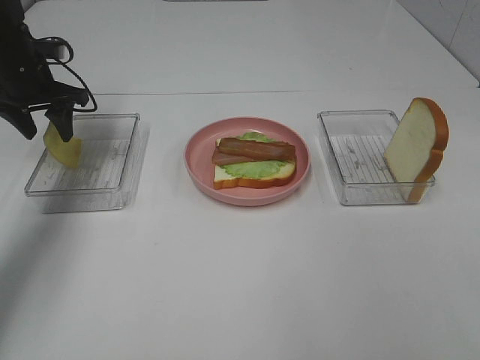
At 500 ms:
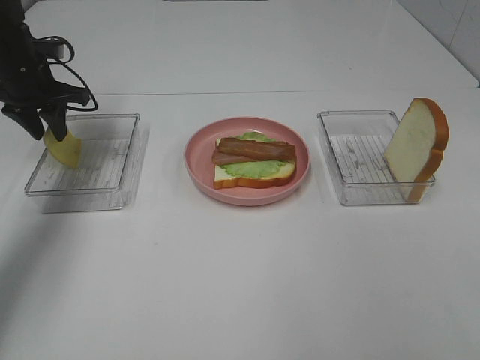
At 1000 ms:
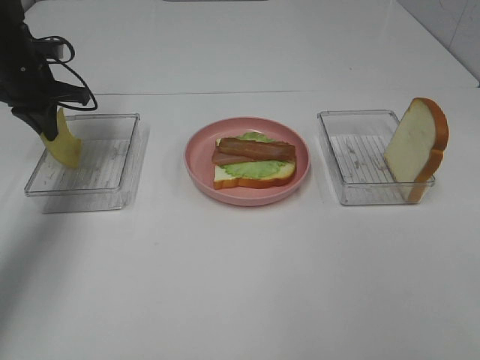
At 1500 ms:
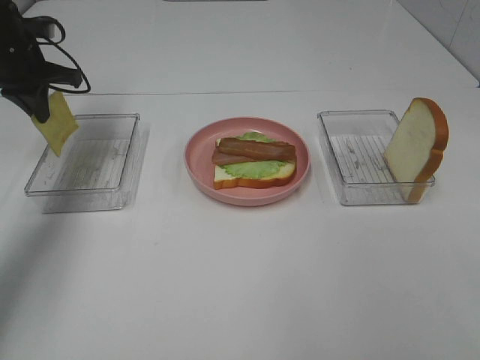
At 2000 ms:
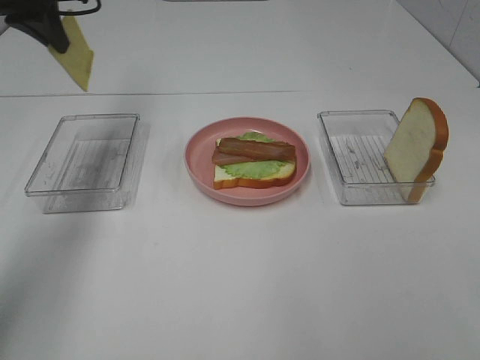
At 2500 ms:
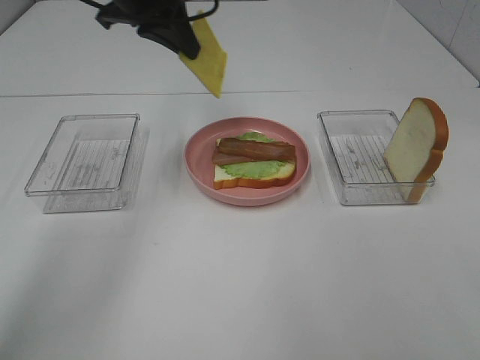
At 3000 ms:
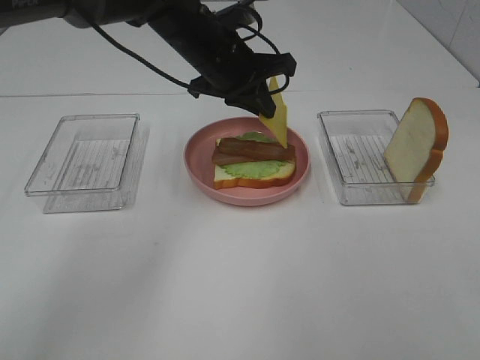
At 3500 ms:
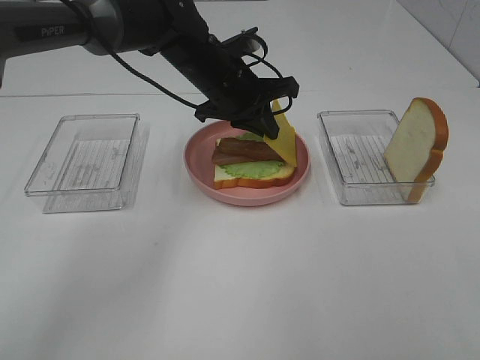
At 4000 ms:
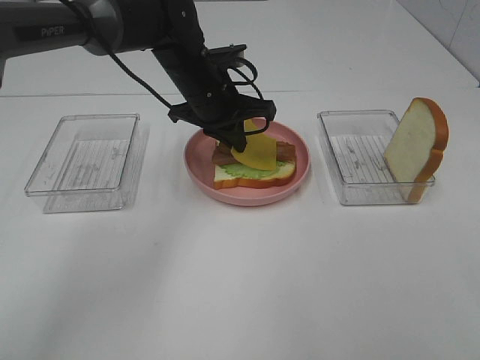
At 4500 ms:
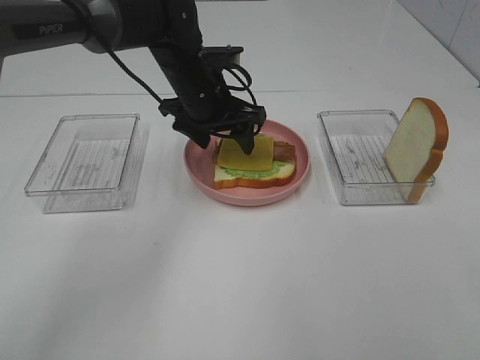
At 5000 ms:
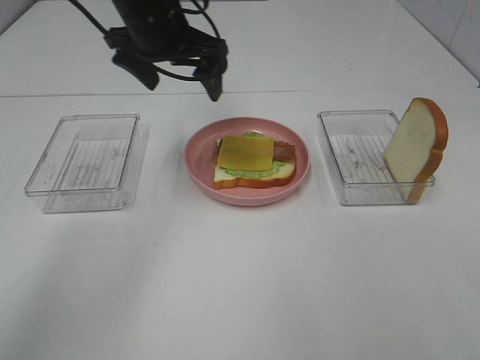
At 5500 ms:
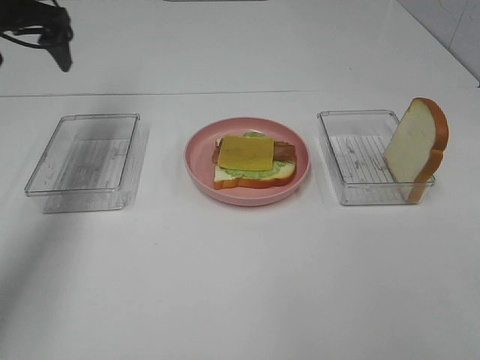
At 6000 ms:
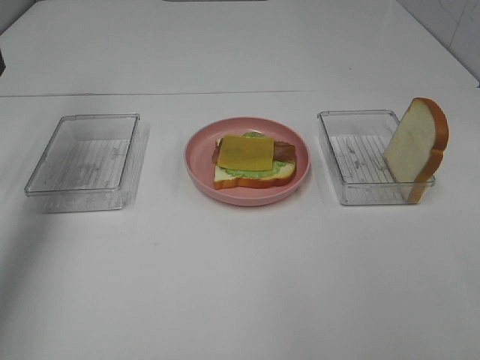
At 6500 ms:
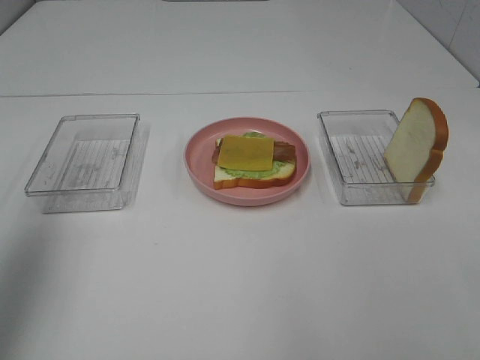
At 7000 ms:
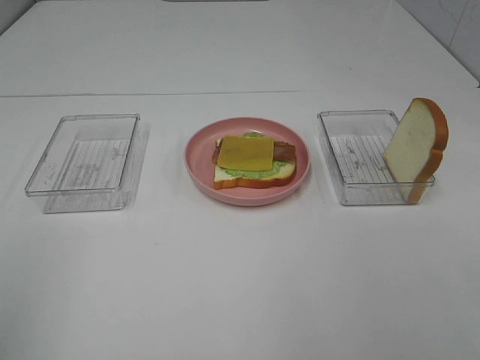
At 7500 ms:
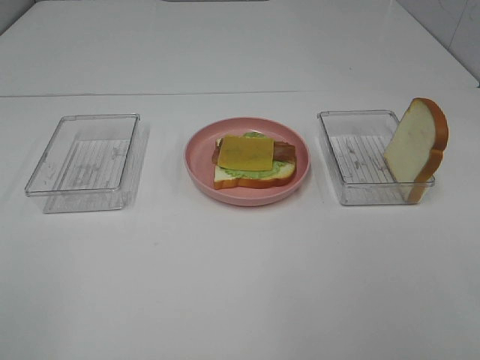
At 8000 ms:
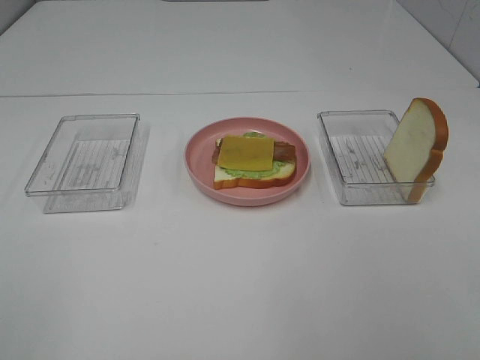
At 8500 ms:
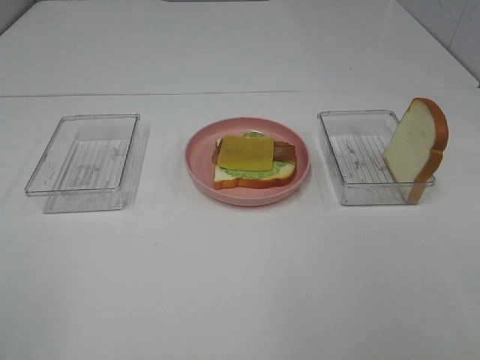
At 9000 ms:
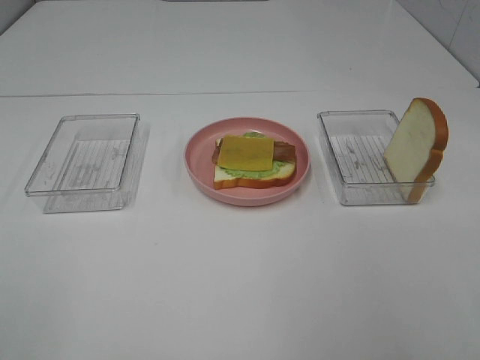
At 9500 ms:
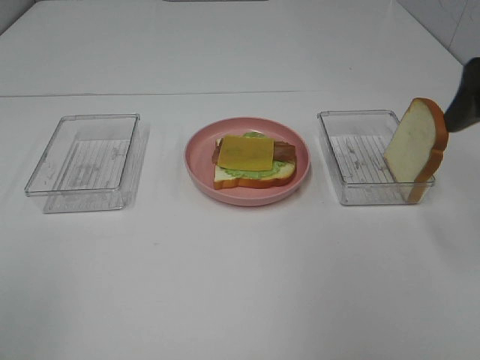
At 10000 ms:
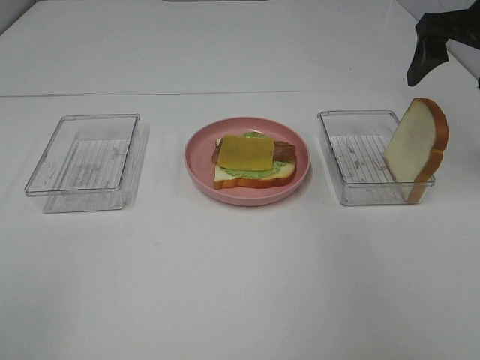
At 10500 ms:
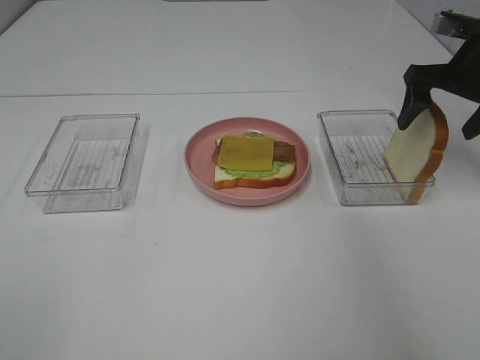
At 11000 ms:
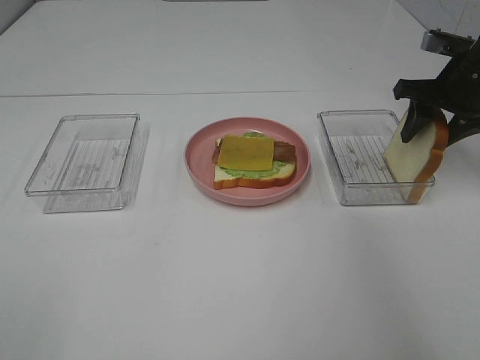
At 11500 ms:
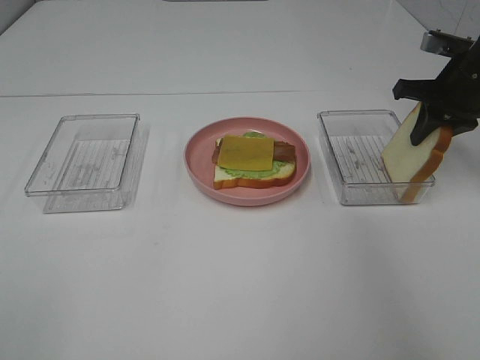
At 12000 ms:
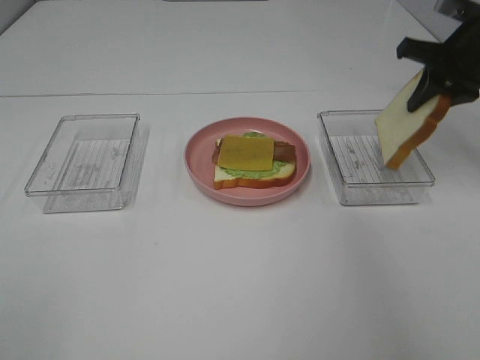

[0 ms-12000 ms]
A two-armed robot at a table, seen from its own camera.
Task of the whole recording: Make sandwiches.
Step, 1500 ms to 4500 ms: Left hand:place the cheese slice on top of the bacon.
Step, 5000 ms to 11500 ms: Right hand:grab the bread slice.
0 ms to 2000 ms: The left gripper goes about 15 cm upward and to the right, and closes.
2000 ms to 4000 ms: The left gripper goes approximately 25 cm to the right and downward.
4000 ms to 6000 ms: The left gripper goes roughly 35 cm to the left and upward, and opens up.
6000 ms to 8000 ms: The left gripper is displaced backward by some 40 cm.
8000 ms to 10000 ms: The right gripper moves forward, approximately 35 cm.
10000 ms to 12000 ms: The right gripper closes up.

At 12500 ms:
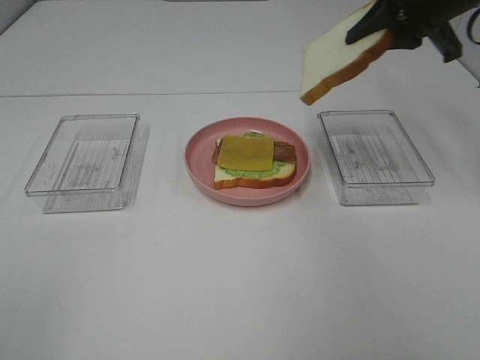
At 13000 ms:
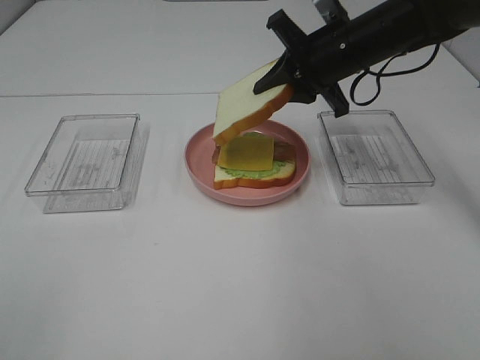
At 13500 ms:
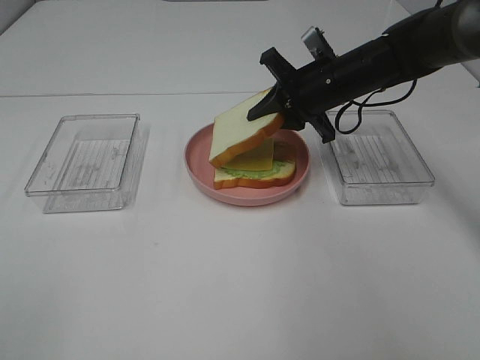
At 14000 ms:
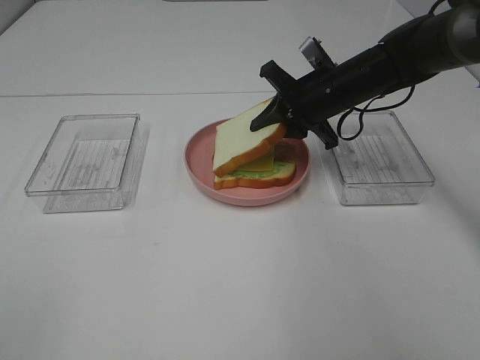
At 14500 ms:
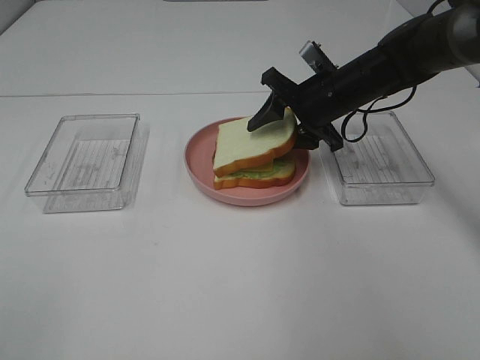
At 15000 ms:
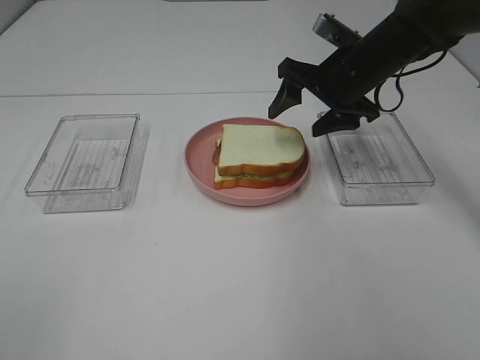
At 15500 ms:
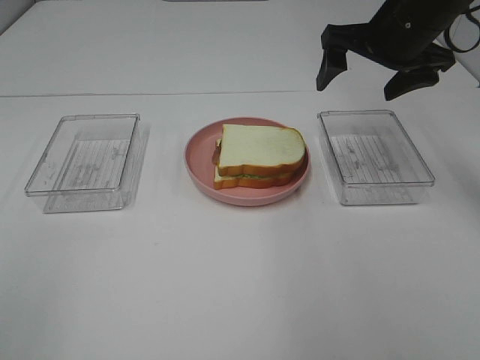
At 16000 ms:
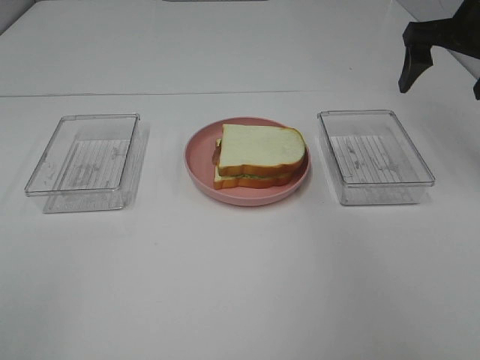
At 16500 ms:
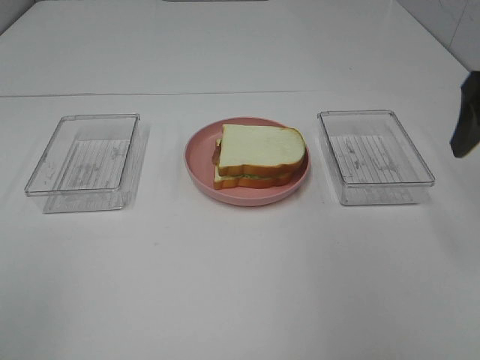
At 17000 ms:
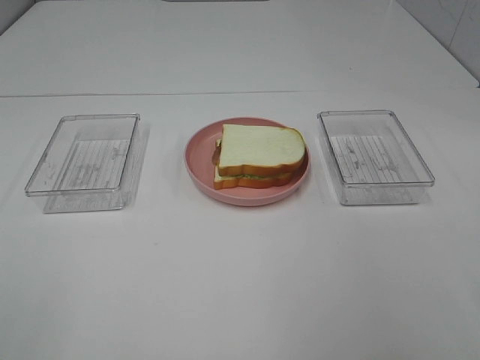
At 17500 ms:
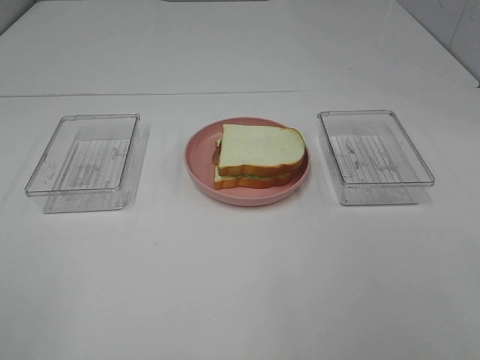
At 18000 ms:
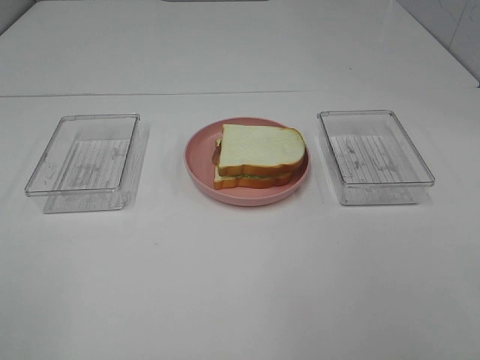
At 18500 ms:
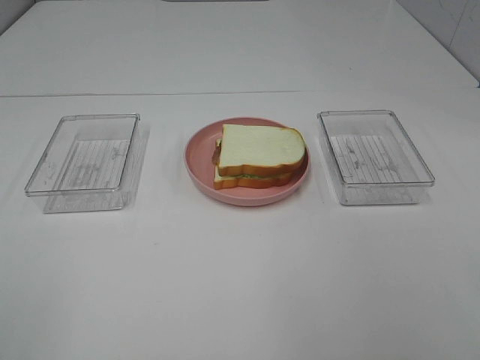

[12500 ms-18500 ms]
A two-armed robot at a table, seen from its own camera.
Task of the whole recording: Make sandwiches.
Step, 12500 ms to 15000 ms: Right hand:place the bread slice on the cheese slice.
12500 ms to 14500 ms: The right gripper shifts some 15 cm downward and to the left, and opens its fingers.
14500 ms to 16500 ms: The right gripper is displaced backward, upward and to the right by approximately 25 cm, and opens up.
16500 ms to 18500 ms: The right gripper moves backward, about 25 cm.
